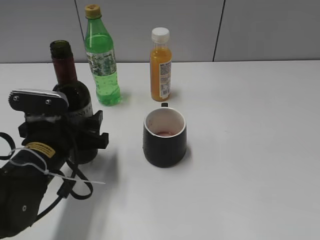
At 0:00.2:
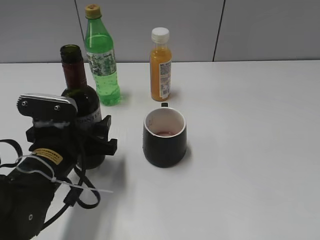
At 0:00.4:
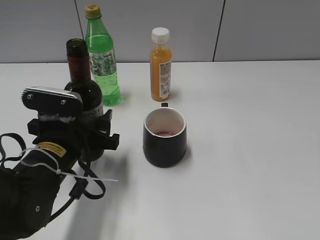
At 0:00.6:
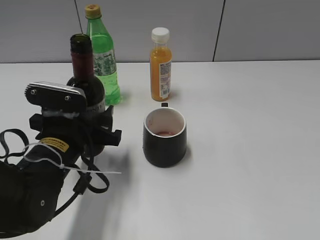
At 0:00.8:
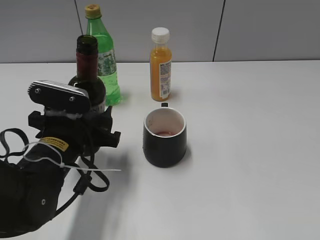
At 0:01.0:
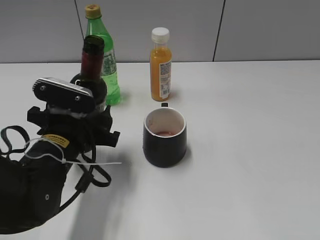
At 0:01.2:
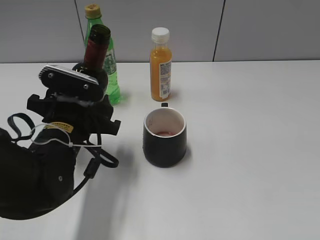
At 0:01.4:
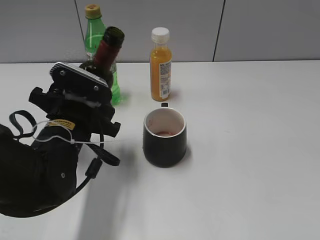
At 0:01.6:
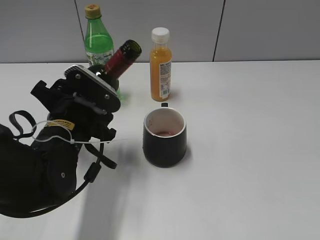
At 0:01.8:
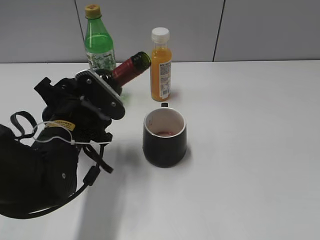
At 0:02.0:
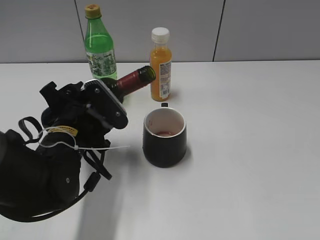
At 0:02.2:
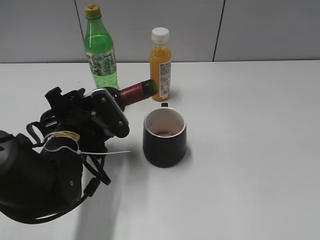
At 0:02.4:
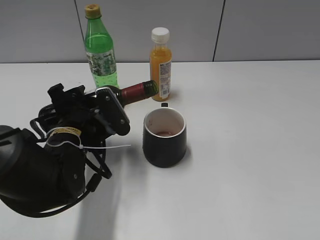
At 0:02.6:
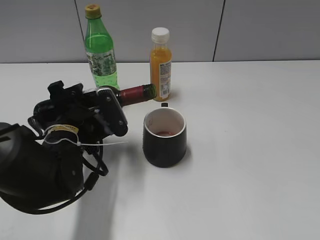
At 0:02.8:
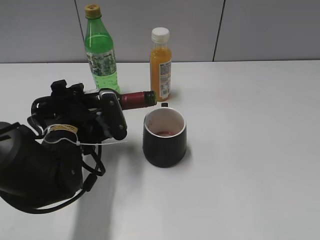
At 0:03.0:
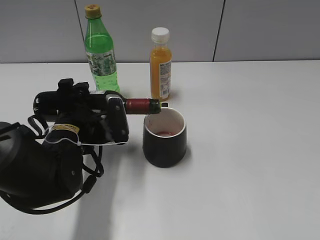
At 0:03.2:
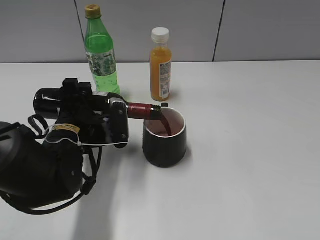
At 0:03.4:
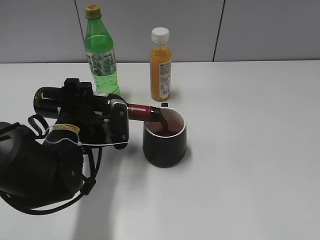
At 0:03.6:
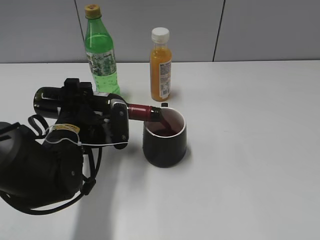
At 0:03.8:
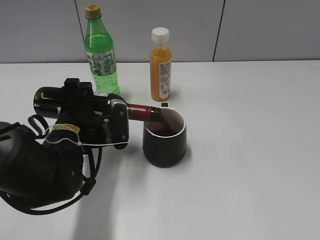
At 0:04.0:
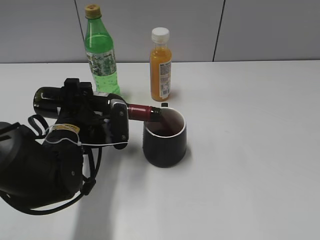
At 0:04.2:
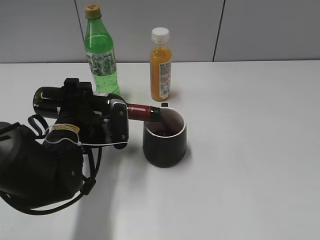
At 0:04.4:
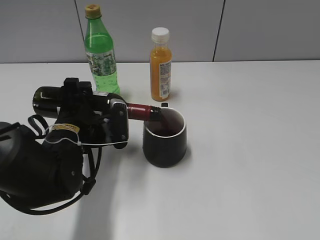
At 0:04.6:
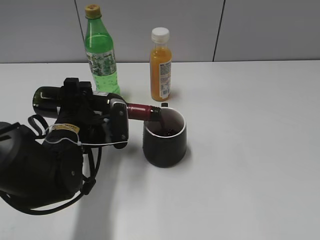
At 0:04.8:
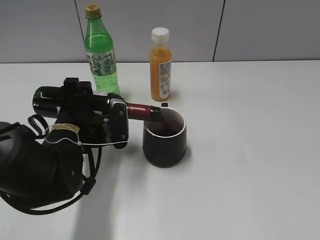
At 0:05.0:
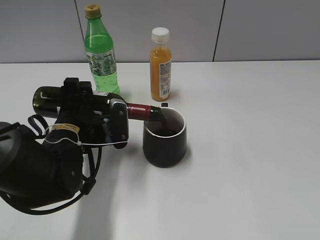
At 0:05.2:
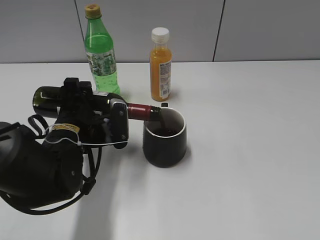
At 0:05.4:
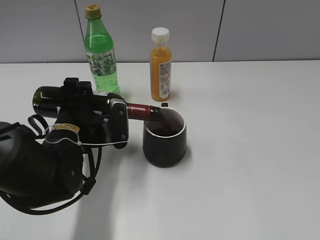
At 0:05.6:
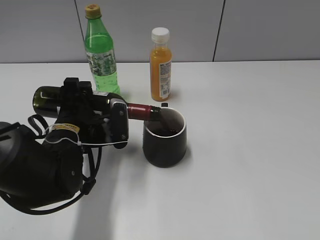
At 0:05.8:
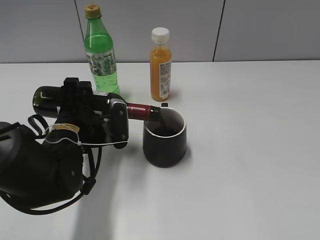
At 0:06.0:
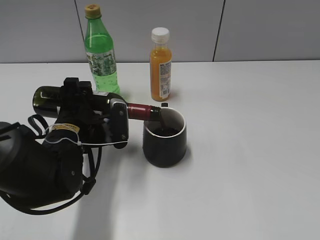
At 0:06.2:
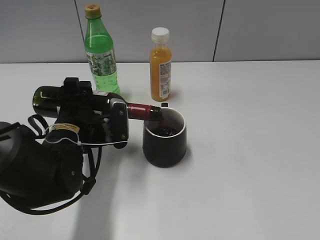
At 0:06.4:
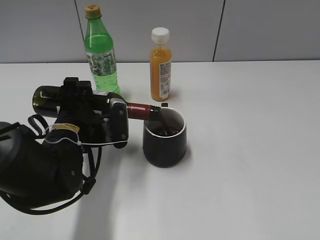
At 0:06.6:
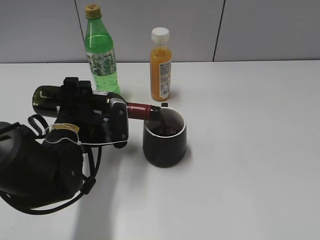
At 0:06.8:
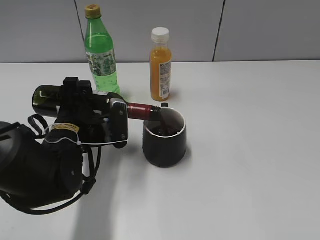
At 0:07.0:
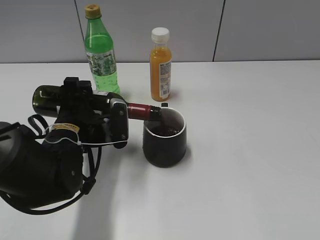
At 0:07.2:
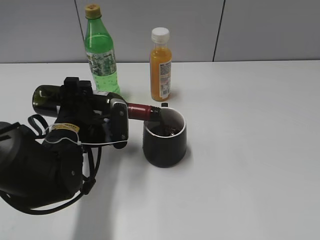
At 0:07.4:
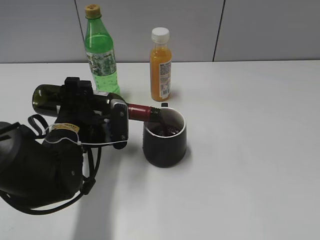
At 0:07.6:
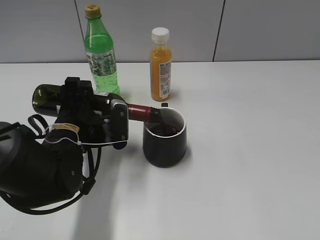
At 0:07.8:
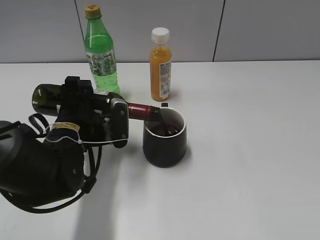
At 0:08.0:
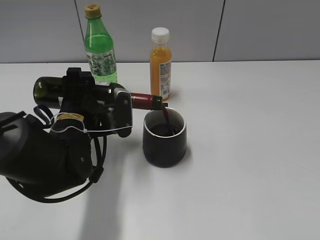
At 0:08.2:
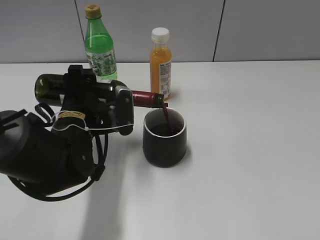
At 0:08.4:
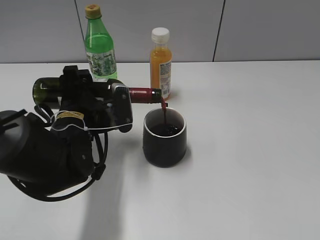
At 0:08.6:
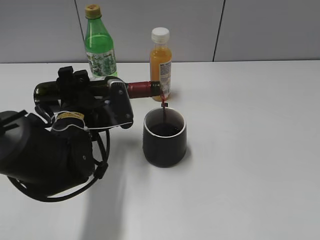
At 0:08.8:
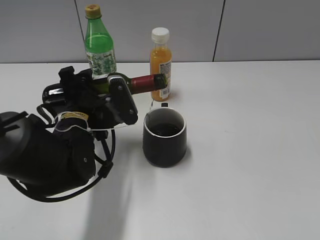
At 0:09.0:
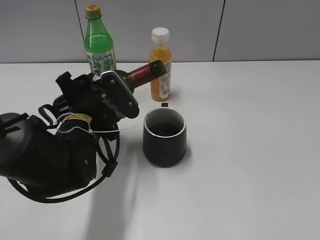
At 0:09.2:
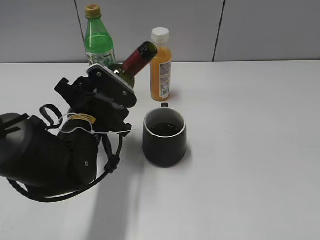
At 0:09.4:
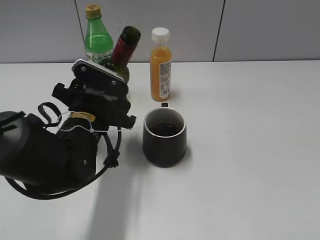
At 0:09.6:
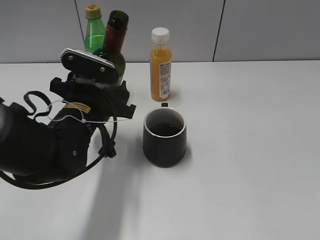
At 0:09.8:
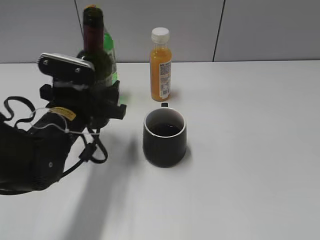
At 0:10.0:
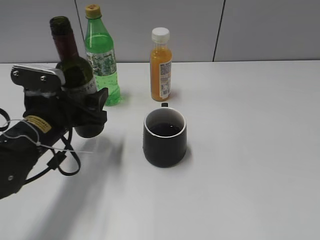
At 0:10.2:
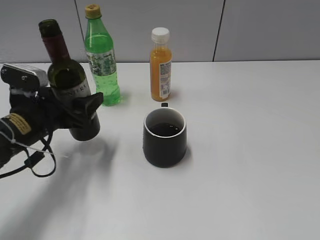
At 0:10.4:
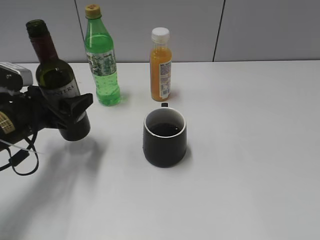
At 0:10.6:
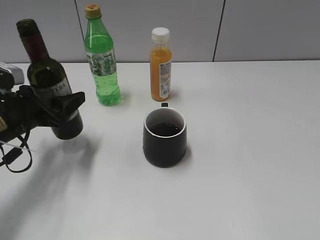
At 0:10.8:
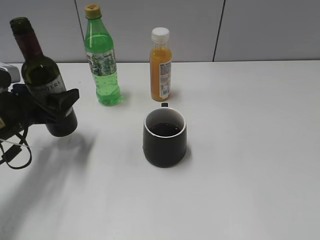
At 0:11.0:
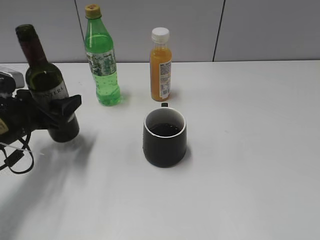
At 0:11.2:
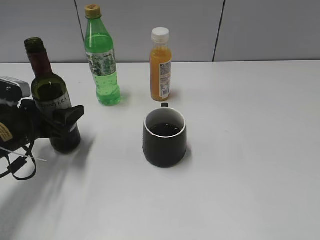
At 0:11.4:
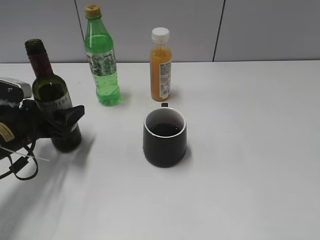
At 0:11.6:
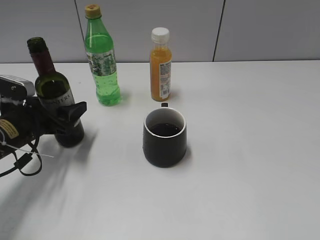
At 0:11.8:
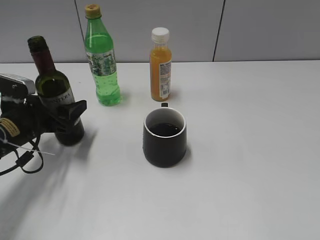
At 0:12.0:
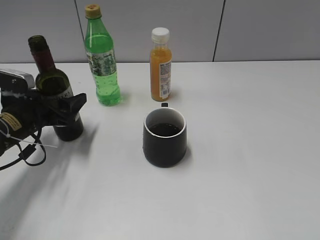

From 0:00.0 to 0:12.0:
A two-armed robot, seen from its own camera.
Step, from 0:00.0 to 0:08.8: Pour the red wine from bottle to cup with left gripper.
From 0:03.0 to 0:04.4: The grippers move only a little.
From 0:04.4 to 0:07.6: Both grippers stay put.
From 0:09.0 to 0:10.4: The left gripper moves to the left, roughly 10 cm.
From 0:10.4 to 0:12.0: The left gripper ends up some 5 cm from where it was, and opens its fingers.

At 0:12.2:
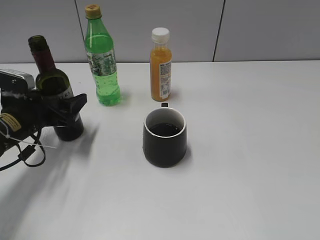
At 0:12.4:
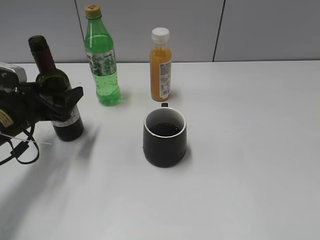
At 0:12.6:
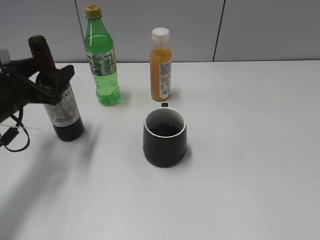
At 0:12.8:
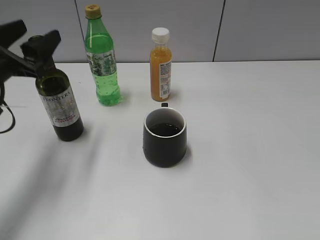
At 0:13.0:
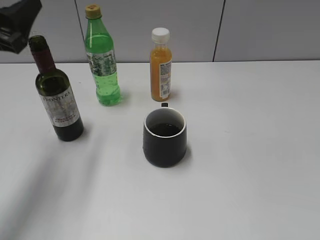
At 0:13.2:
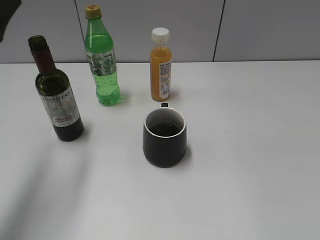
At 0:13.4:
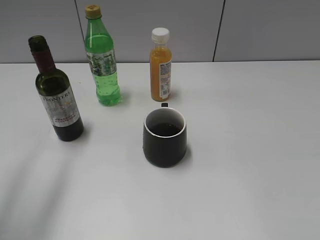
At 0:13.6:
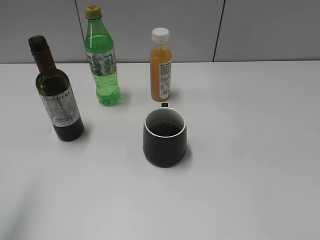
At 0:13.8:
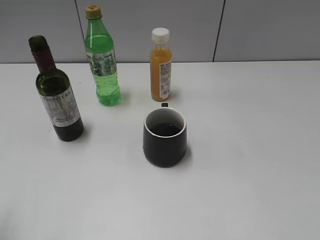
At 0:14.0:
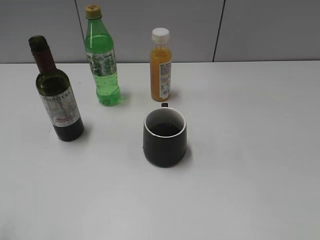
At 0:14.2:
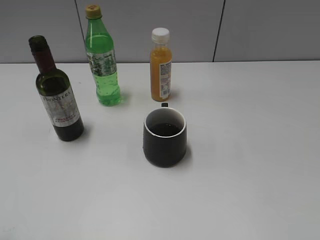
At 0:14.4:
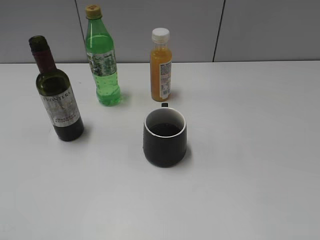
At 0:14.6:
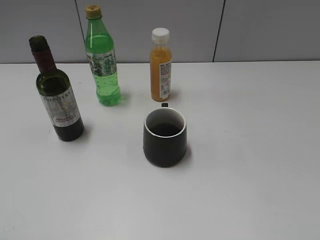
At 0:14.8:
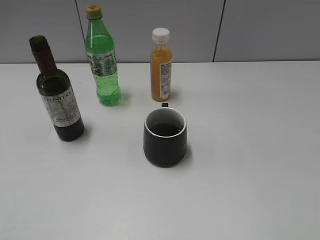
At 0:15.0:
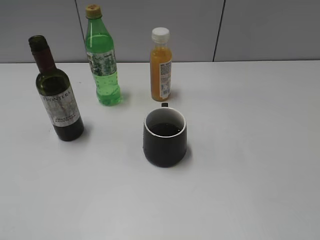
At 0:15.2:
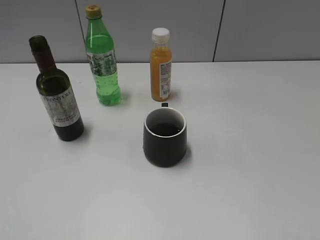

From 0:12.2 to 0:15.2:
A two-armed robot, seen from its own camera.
From 0:12.2 to 0:13.8: The left gripper heads upward and backward, covering roughly 30 cm.
